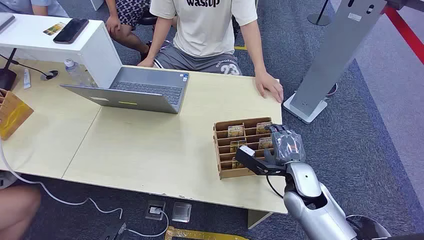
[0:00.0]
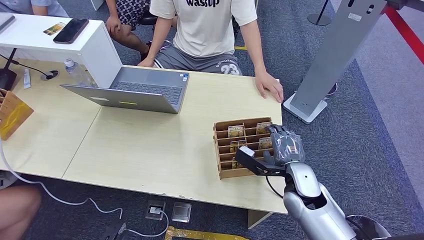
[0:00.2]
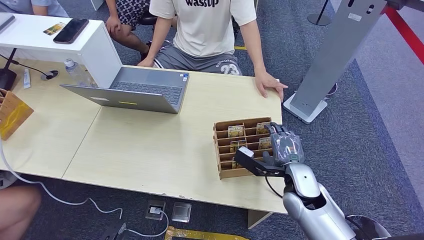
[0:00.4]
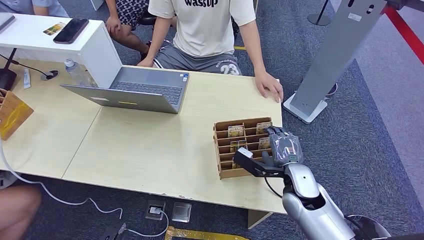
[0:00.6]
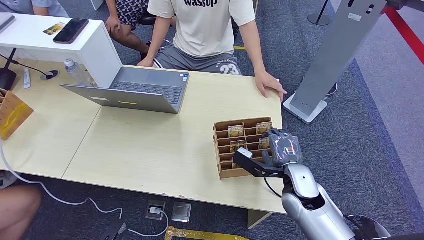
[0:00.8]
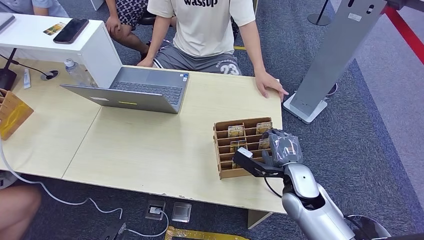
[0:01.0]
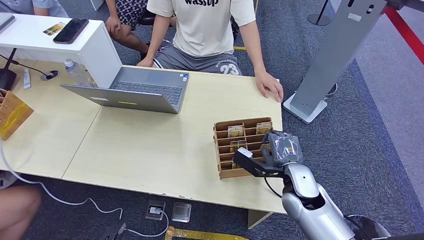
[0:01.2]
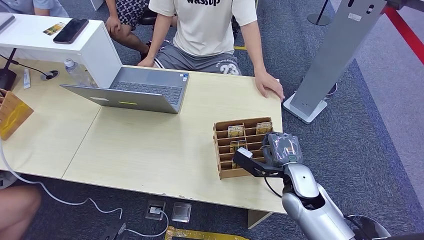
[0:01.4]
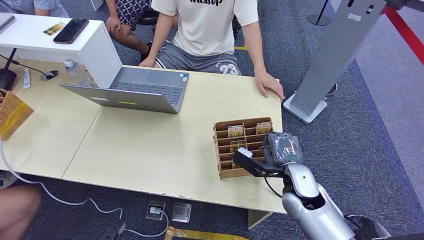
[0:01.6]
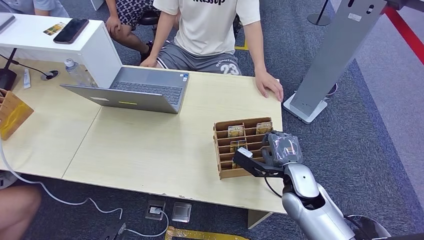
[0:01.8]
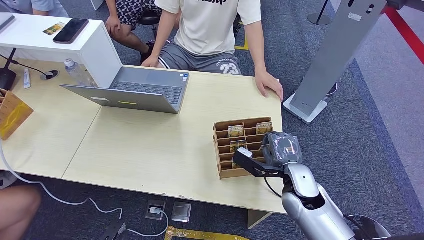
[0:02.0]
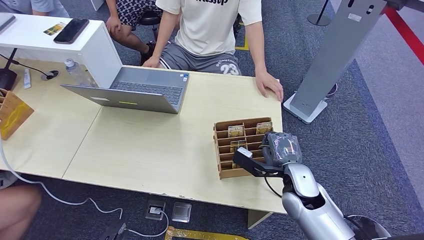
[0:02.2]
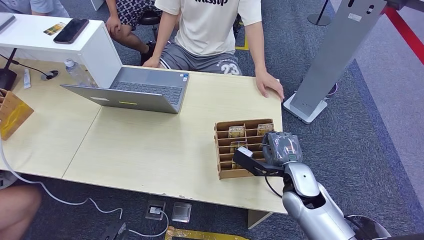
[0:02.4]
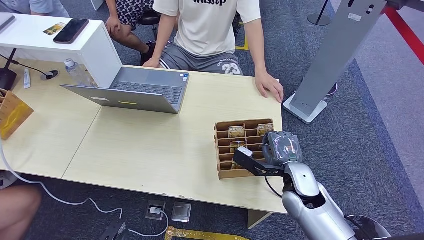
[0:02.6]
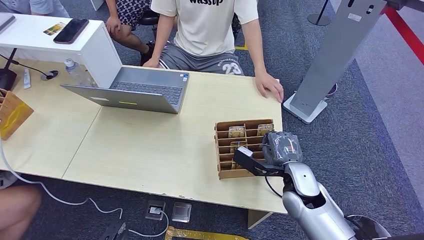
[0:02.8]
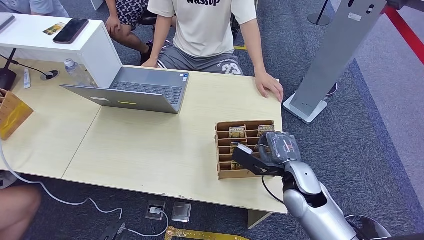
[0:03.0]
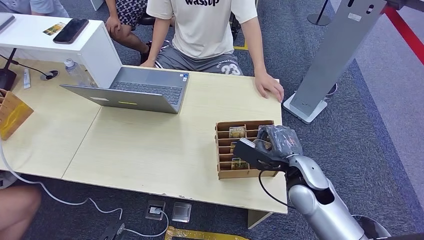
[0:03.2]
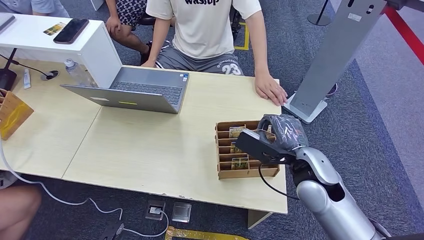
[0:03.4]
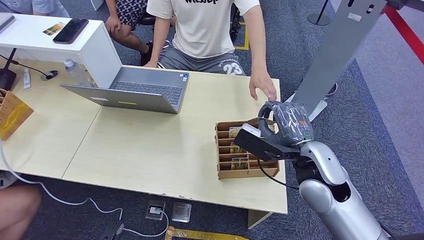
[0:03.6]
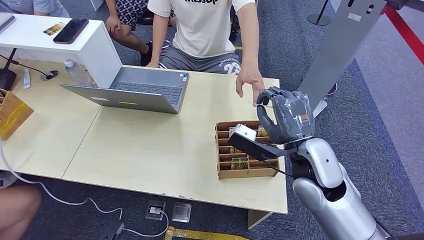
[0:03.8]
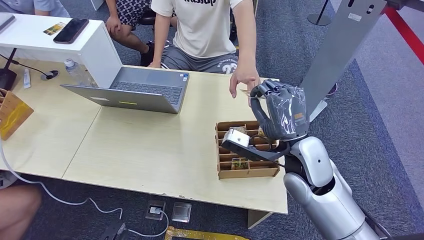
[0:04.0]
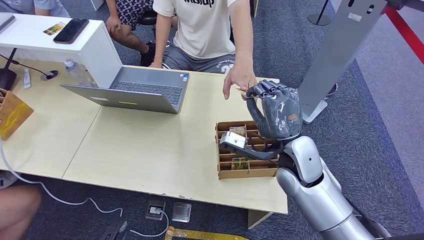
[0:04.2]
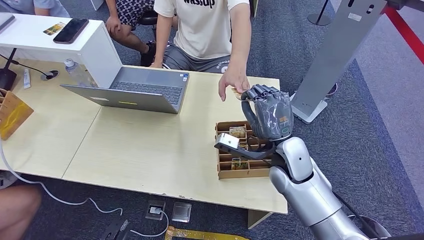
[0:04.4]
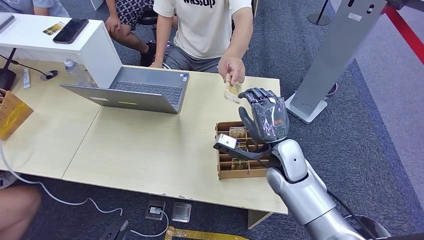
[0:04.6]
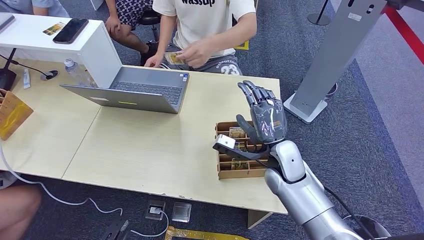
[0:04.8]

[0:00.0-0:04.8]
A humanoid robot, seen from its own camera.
Step, 0.0 to 3.2 s: Pick up the key card from the card box.
Step, 3.8 to 4.8 s: Hand the key card to the target.
1.6 to 3.2 s: The hands move only a little.
3.2 to 4.8 s: The right hand goes upward and returns, some 10 cm each way.

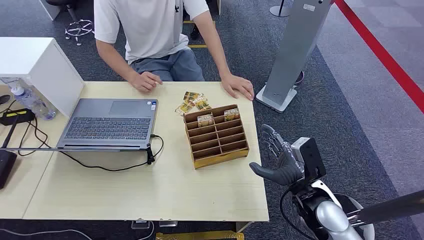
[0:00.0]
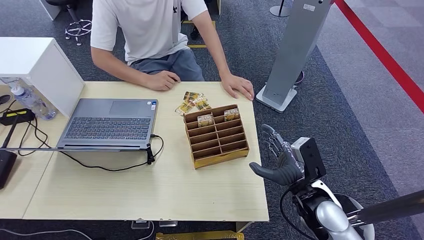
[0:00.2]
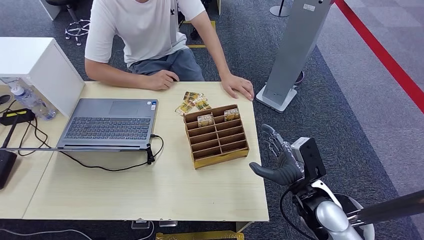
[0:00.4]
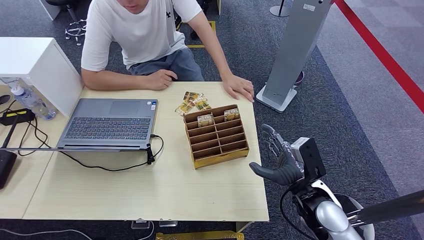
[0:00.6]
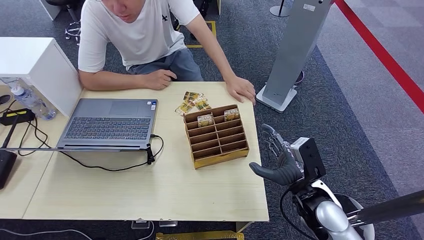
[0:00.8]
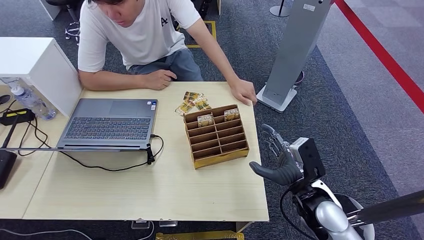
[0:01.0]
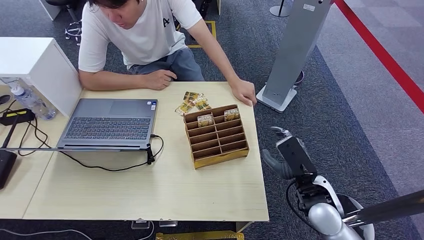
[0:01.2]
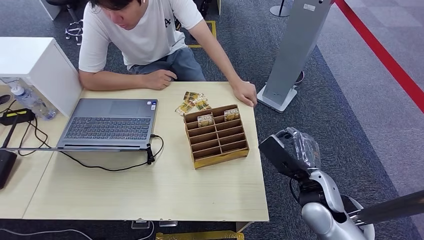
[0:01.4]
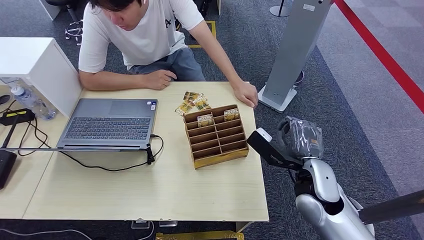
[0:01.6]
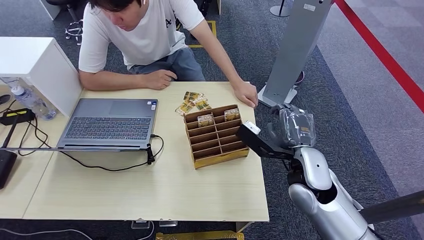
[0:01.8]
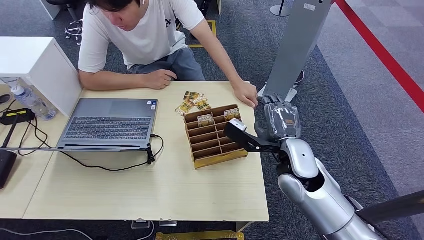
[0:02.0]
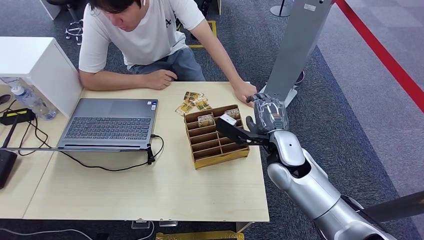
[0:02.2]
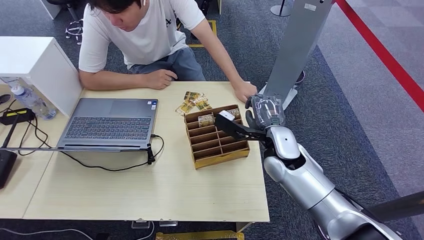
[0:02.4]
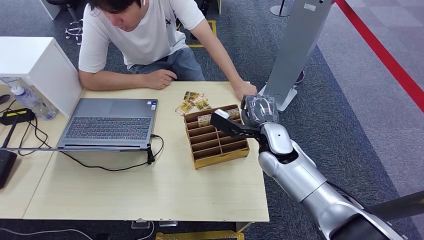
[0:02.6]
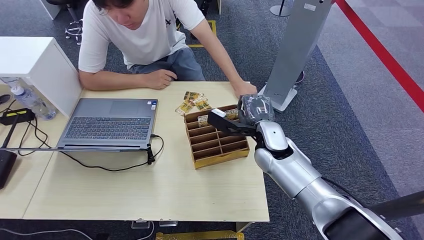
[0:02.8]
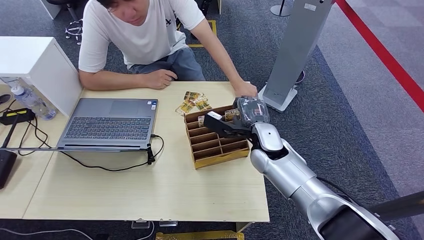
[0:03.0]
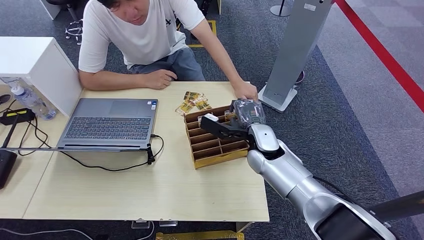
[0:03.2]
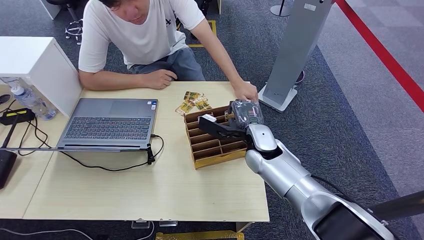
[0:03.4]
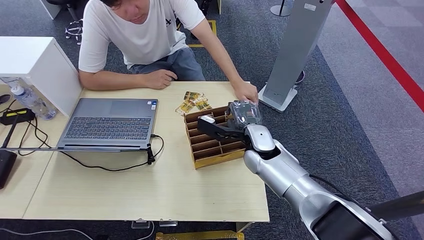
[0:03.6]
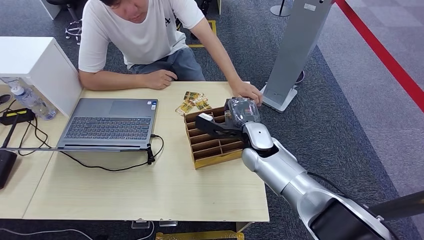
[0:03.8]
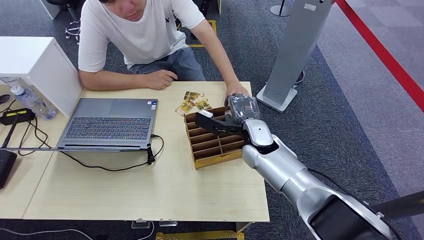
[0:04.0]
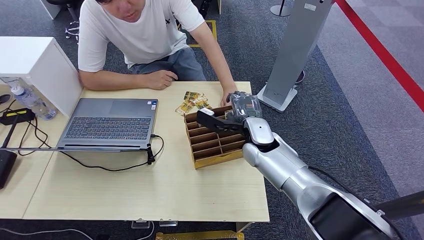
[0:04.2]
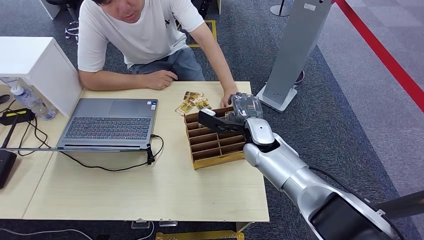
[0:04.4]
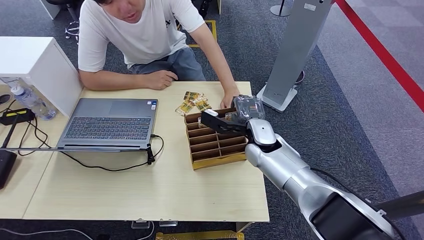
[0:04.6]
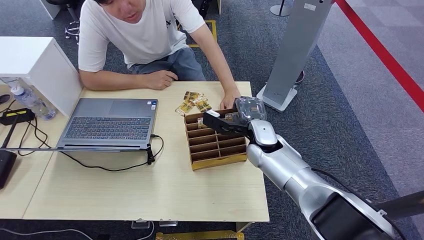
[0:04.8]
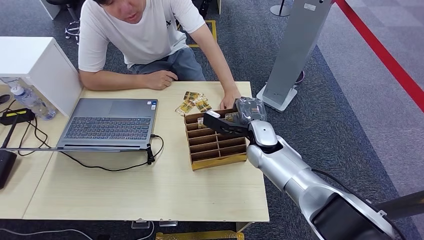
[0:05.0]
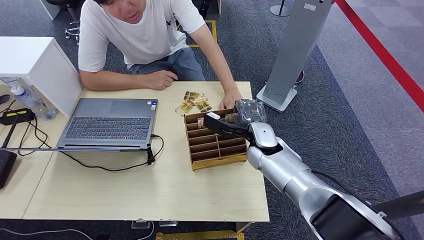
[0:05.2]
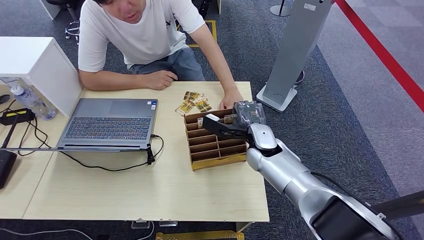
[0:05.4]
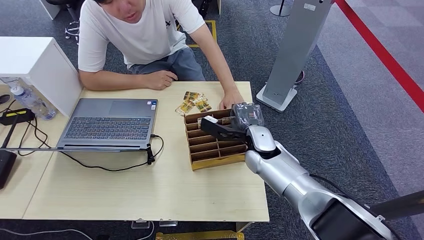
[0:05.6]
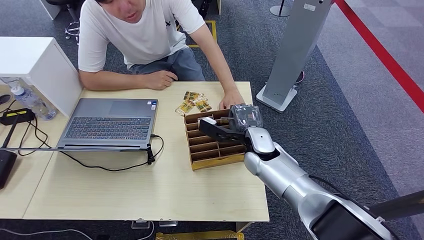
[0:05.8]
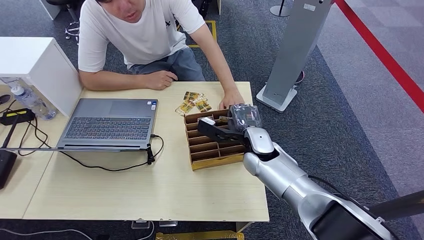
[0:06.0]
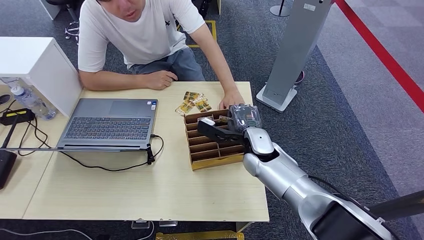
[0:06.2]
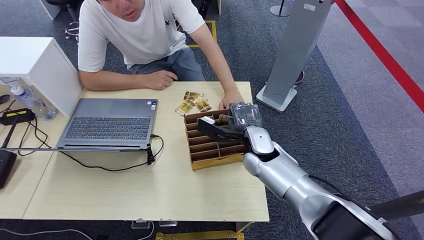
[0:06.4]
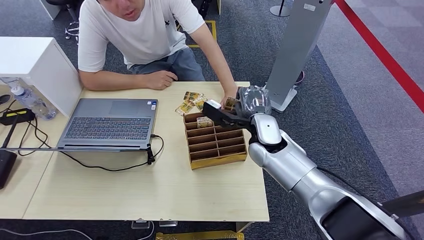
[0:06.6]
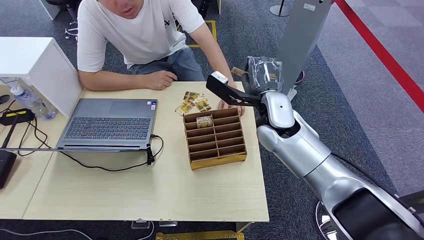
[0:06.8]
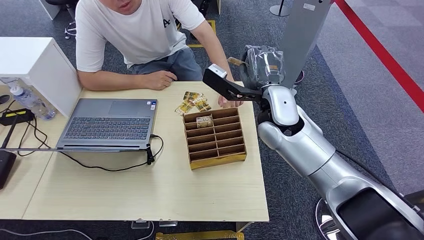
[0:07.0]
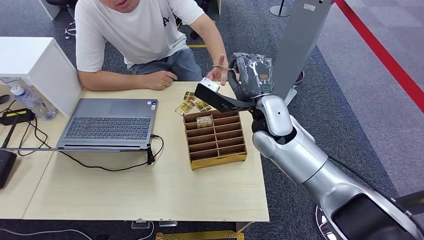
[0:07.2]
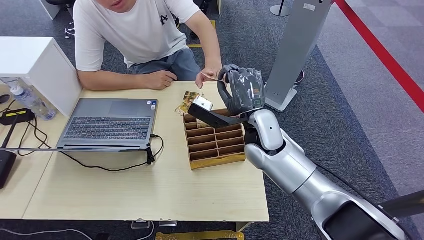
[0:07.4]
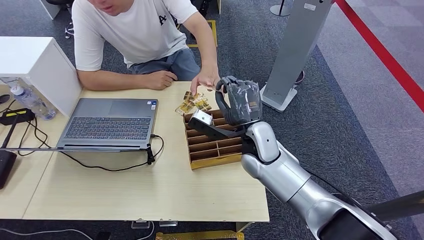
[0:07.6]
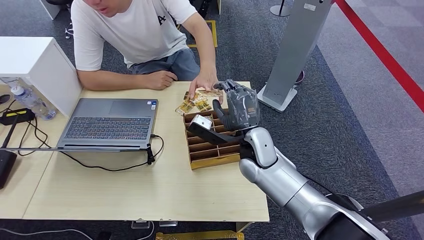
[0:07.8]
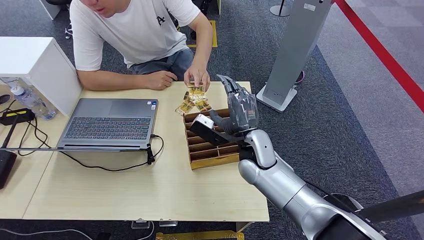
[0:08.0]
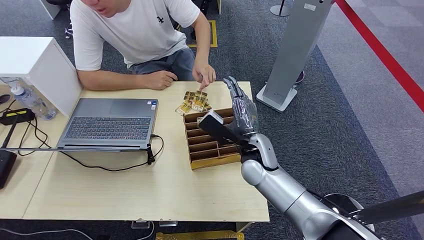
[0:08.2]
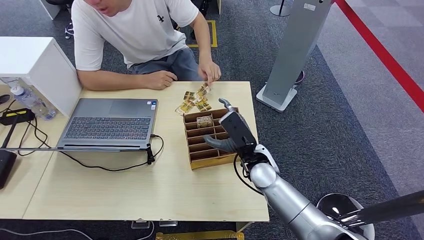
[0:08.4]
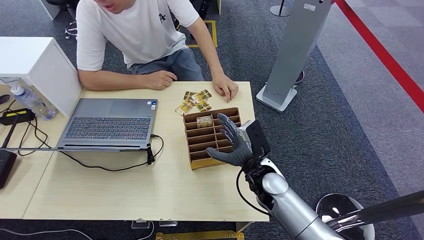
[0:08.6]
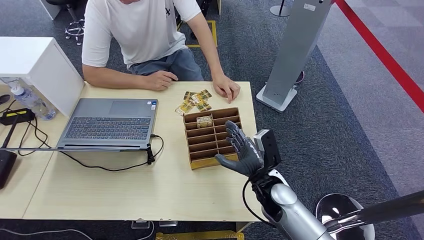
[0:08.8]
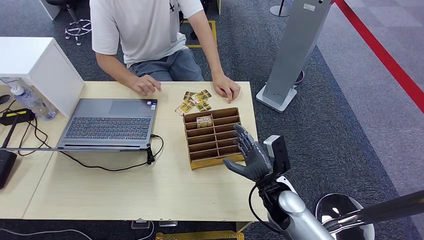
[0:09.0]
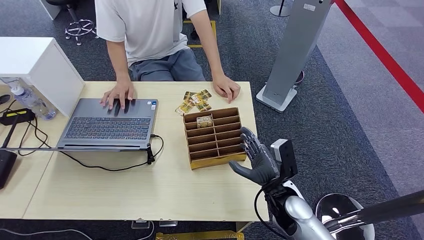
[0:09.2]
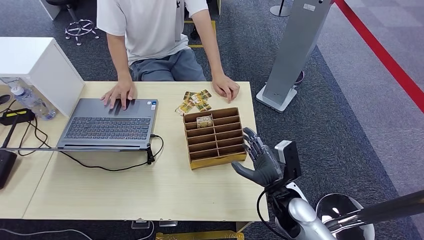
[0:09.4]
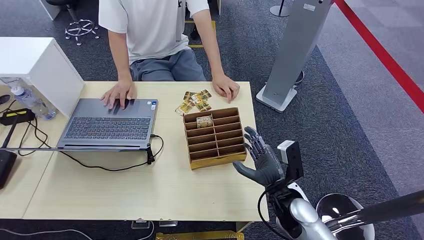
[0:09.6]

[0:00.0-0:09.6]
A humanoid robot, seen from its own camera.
Step, 0.0 to 7.2 s: Pick up the key card from the card box.
Step, 7.4 to 9.4 s: Hand the key card to the target.
1.6 to 3.2 s: The right hand goes about 15 cm forward and to the left.
3.2 to 6.4 s: The hands make only small movements.
6.4 to 8.0 s: The right hand goes upward and returns, some 15 cm each way.
8.0 to 9.6 s: The right hand heads backward, to the right and downward, covering about 15 cm.

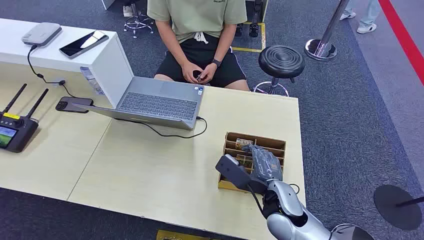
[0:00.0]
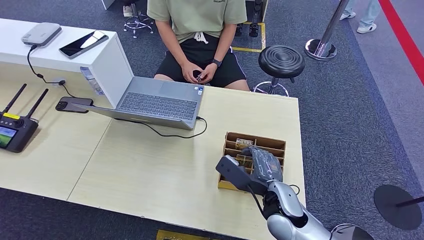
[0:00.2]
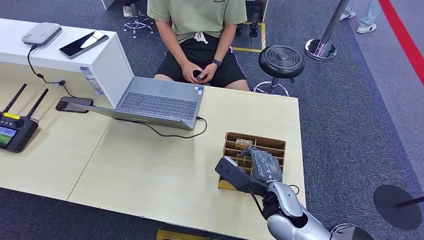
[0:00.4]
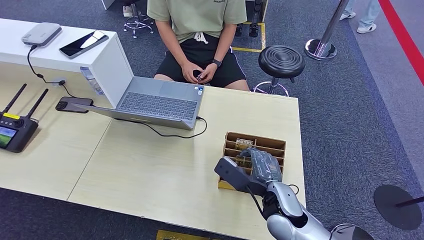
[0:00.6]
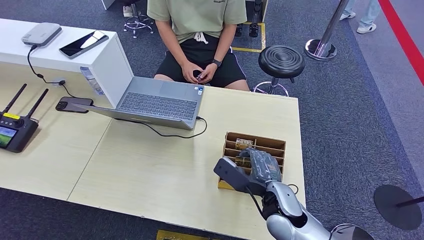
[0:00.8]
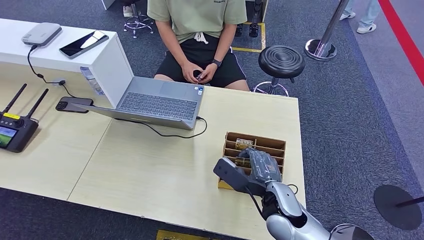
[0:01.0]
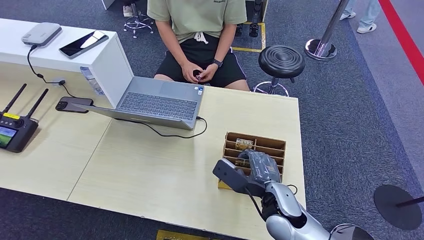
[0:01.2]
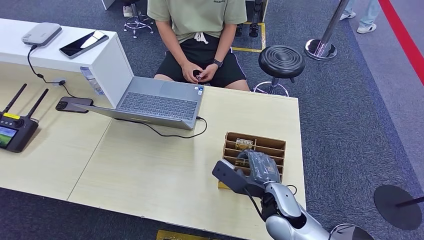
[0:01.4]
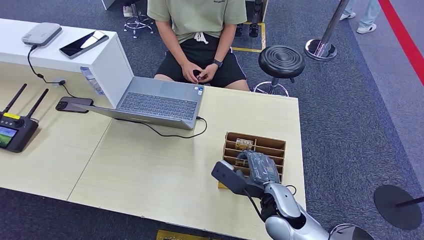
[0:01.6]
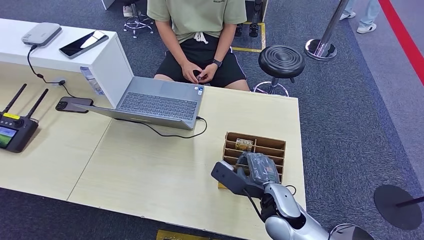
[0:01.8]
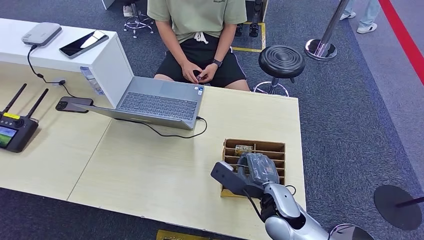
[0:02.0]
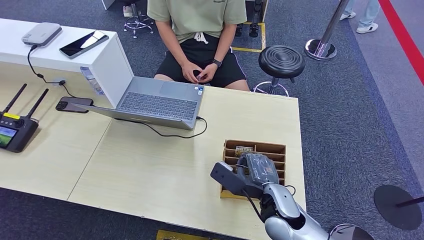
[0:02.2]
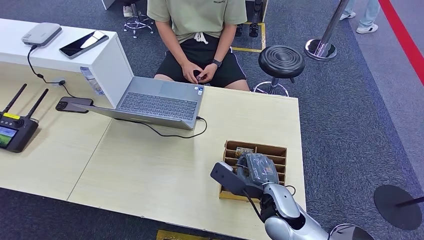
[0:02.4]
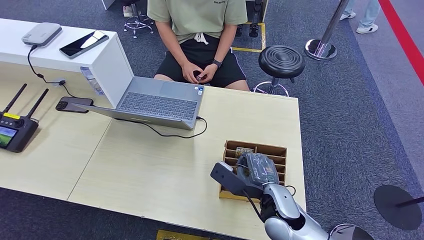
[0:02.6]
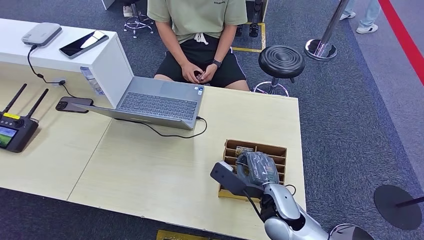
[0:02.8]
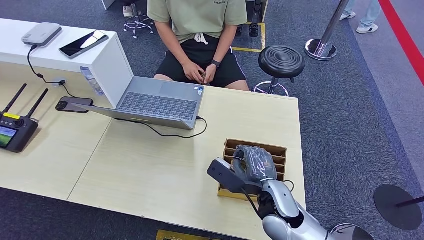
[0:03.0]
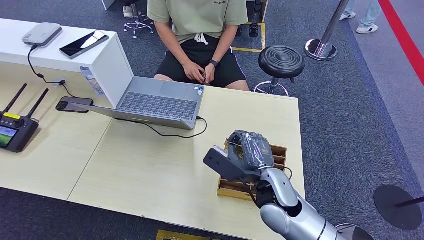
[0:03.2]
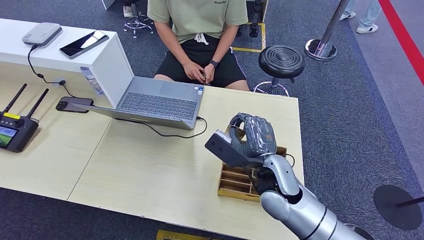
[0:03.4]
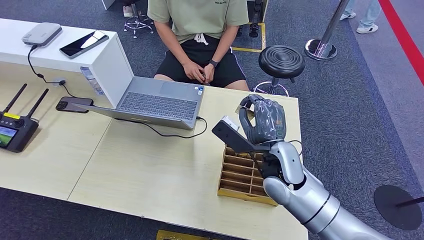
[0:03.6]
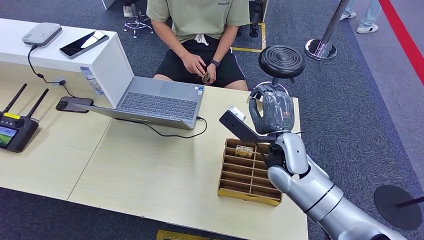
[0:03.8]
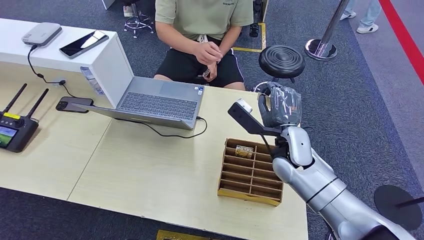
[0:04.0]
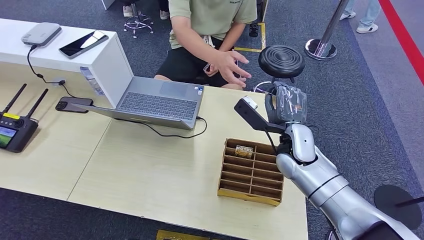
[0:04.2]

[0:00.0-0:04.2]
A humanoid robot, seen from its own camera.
Step, 0.0 to 4.0 s: Pick up the key card from the card box.
1.4 to 2.8 s: The two hands keep their place.
2.8 to 4.2 s: The right hand heads forward and upward, covering approximately 15 cm.
